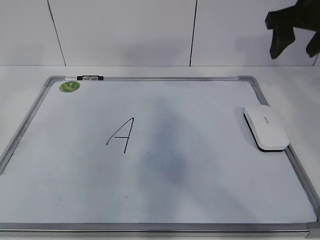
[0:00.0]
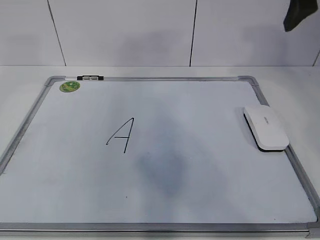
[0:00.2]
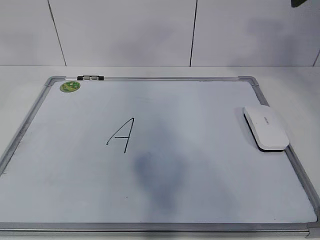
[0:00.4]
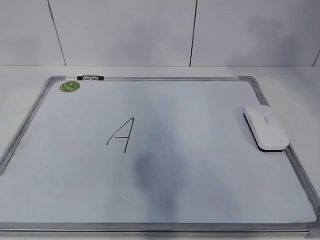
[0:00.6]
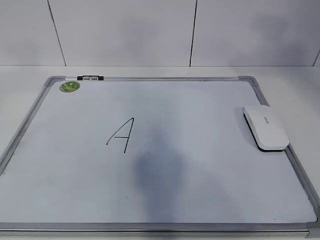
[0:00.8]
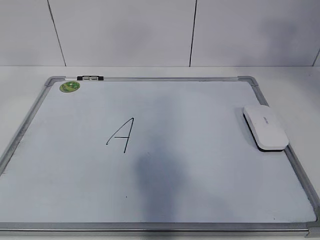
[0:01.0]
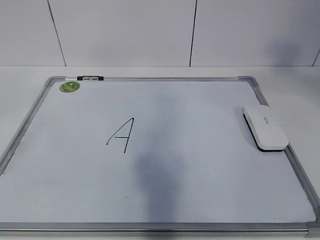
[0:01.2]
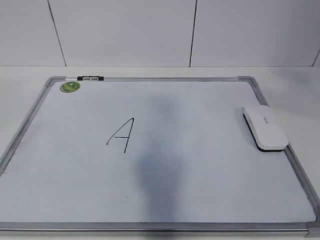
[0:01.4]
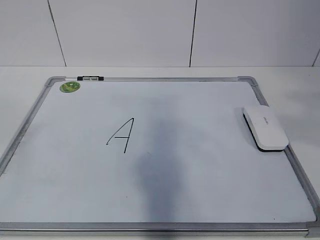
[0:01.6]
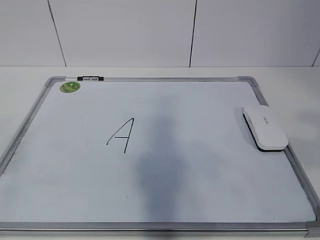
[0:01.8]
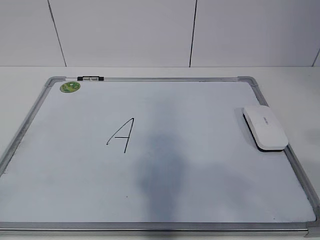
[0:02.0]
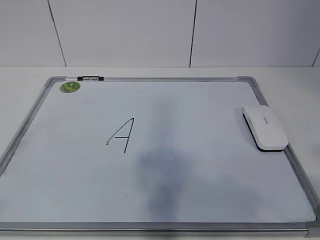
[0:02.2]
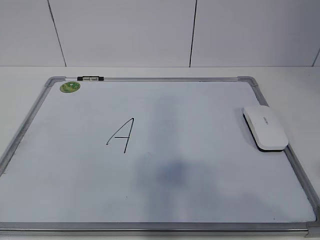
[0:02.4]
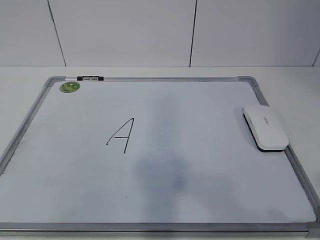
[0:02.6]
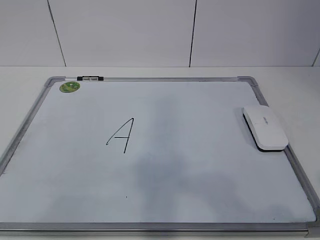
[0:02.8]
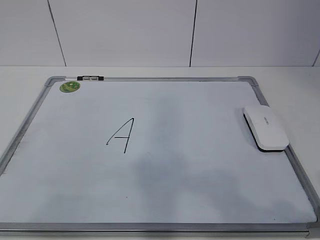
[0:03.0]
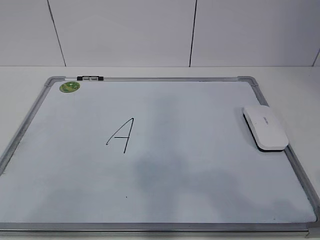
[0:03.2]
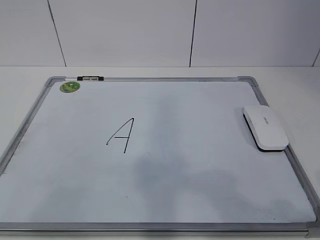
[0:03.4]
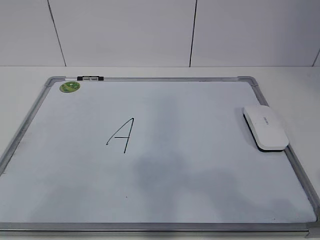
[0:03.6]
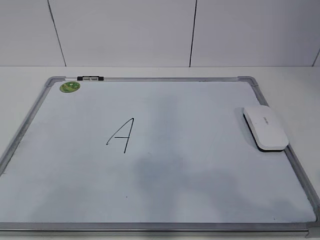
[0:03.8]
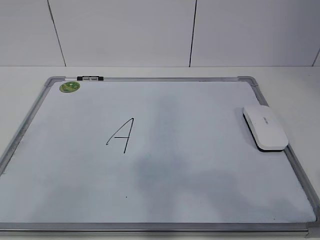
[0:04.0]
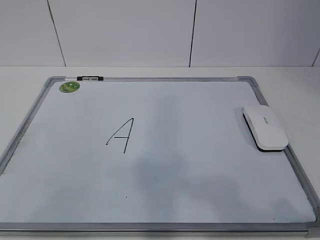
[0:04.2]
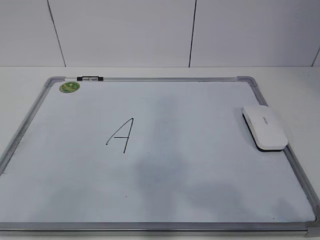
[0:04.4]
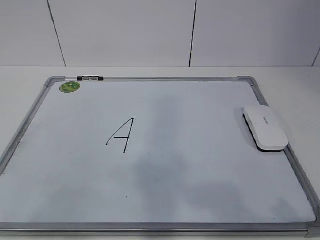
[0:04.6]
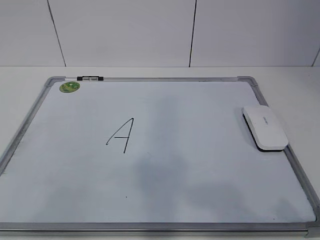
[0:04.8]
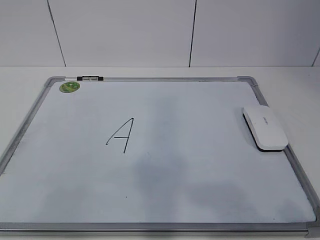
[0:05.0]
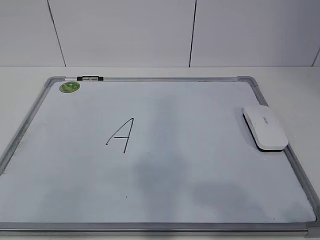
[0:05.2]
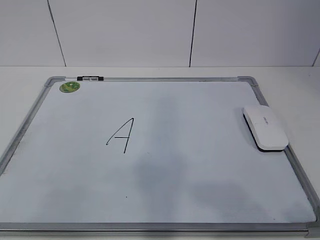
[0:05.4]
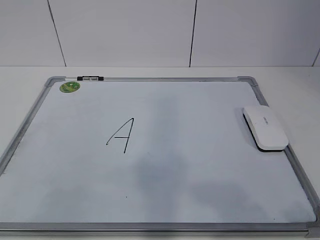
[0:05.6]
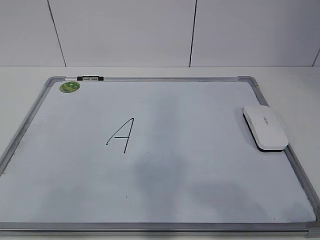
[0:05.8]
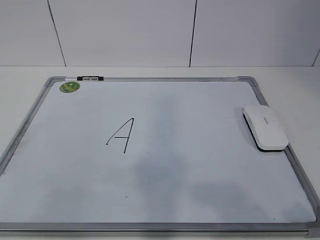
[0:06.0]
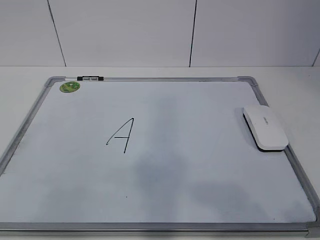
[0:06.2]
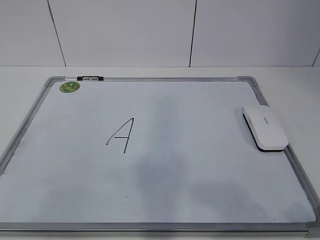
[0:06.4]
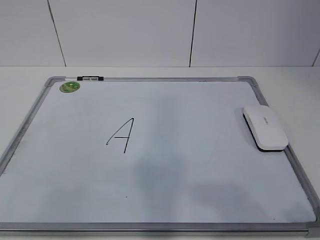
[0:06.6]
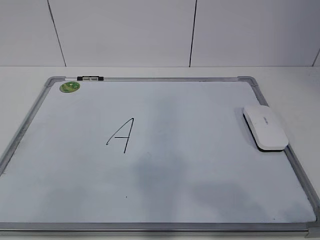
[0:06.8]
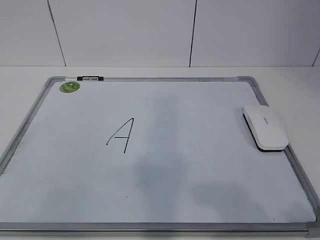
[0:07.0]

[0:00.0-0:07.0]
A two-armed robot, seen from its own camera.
Task of the whole recording: pick up the eraser on the blackboard and erase the letter "a".
0:00.0 to 0:01.4: The grippers both shift backward and upward by roughly 35 cm.
0:01.4 to 0:02.8: The left gripper moves downward, about 20 cm. Meanwhile the right gripper moves downward and backward, some 25 cm.
0:05.6 to 0:07.0: Both grippers stay put.

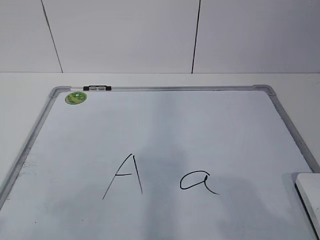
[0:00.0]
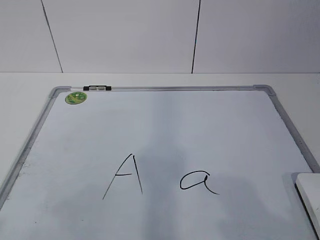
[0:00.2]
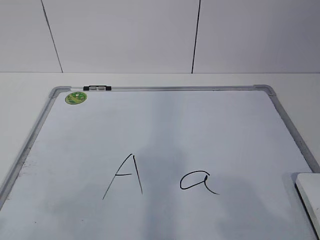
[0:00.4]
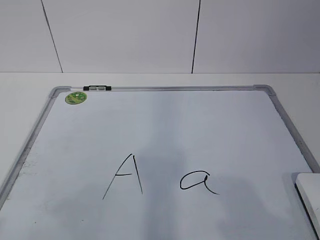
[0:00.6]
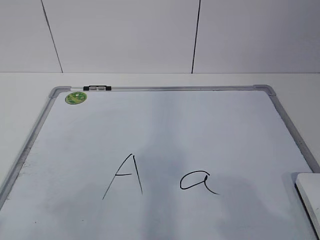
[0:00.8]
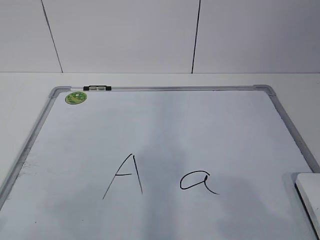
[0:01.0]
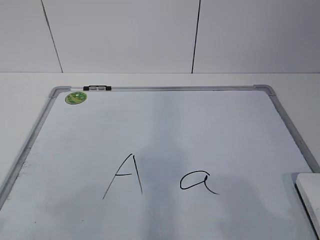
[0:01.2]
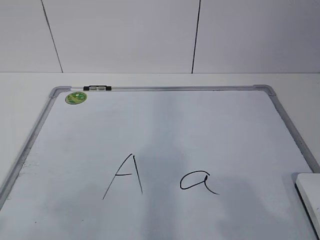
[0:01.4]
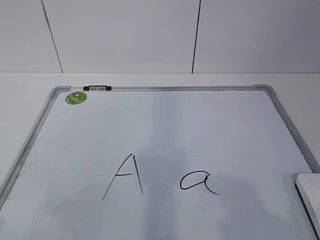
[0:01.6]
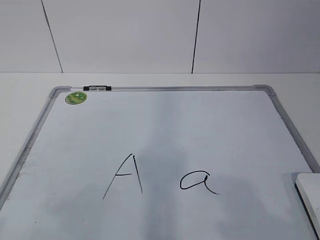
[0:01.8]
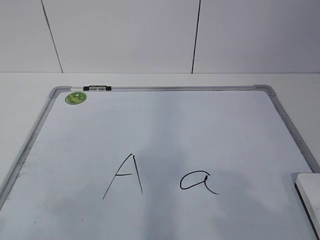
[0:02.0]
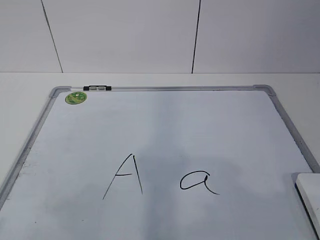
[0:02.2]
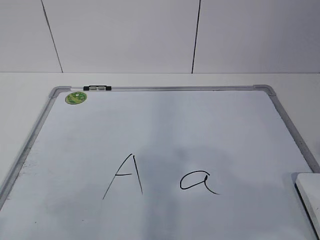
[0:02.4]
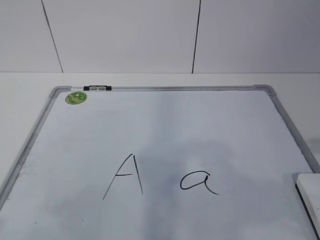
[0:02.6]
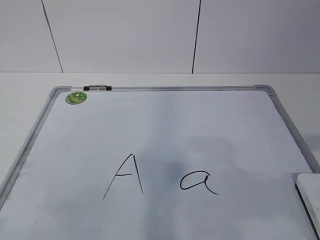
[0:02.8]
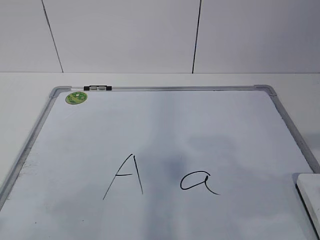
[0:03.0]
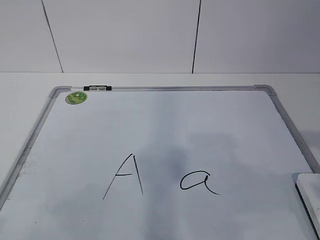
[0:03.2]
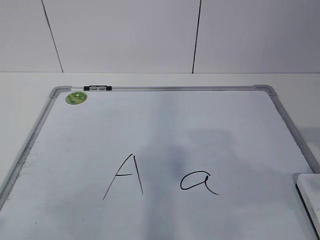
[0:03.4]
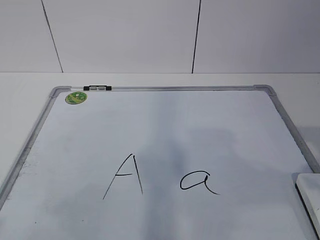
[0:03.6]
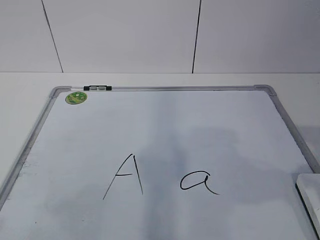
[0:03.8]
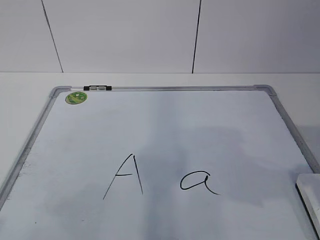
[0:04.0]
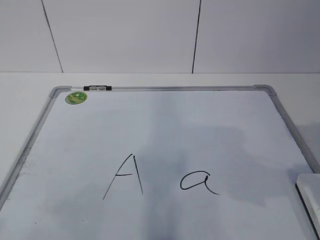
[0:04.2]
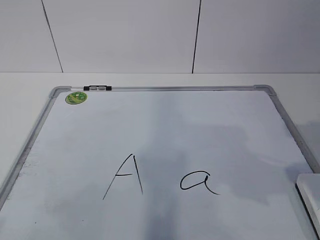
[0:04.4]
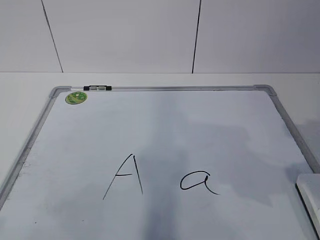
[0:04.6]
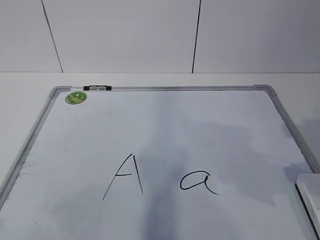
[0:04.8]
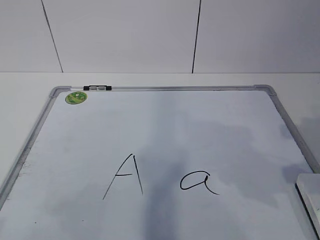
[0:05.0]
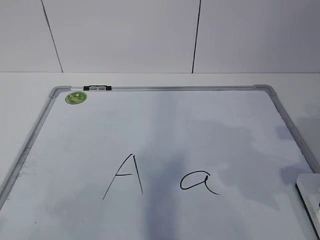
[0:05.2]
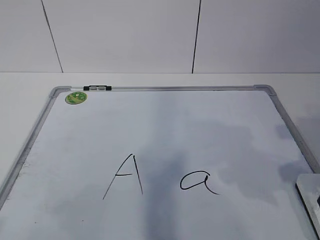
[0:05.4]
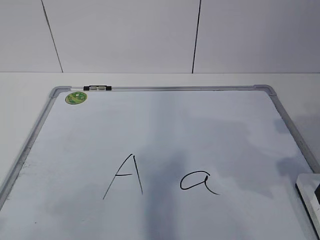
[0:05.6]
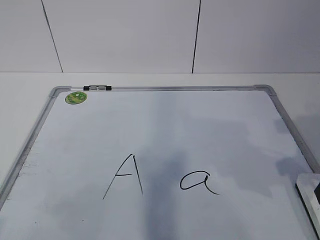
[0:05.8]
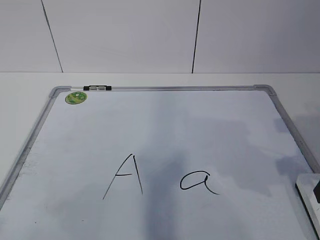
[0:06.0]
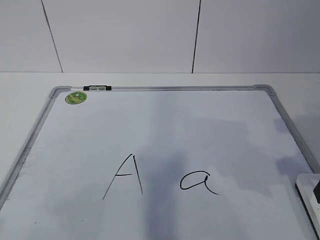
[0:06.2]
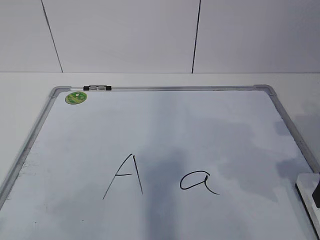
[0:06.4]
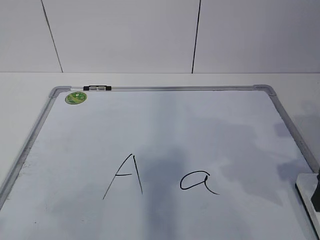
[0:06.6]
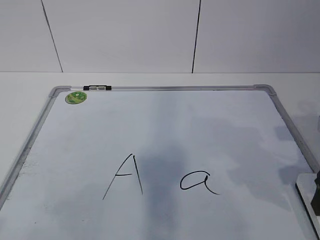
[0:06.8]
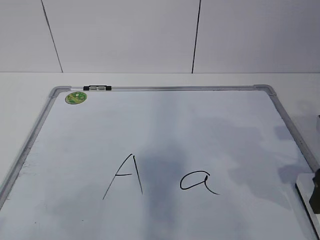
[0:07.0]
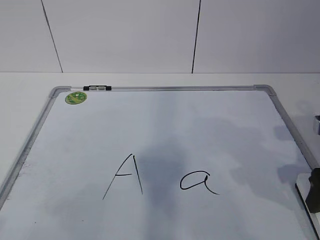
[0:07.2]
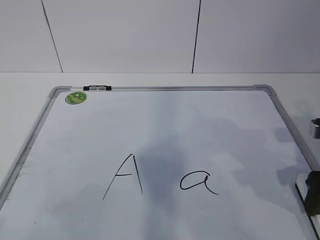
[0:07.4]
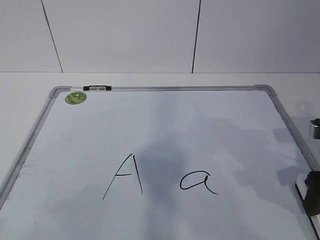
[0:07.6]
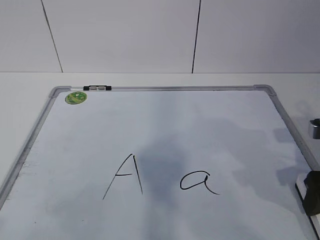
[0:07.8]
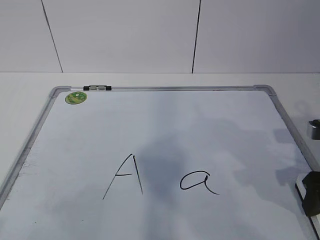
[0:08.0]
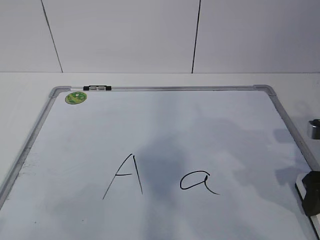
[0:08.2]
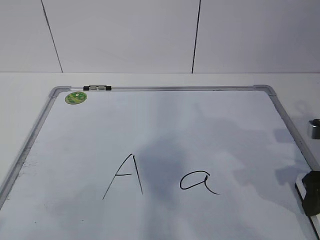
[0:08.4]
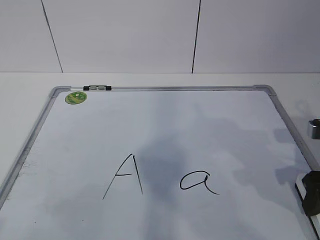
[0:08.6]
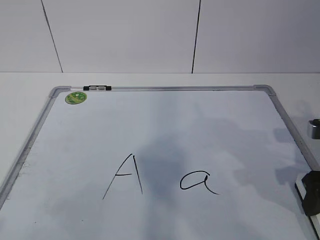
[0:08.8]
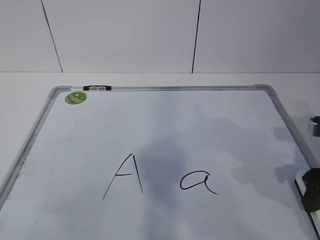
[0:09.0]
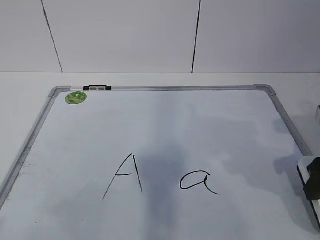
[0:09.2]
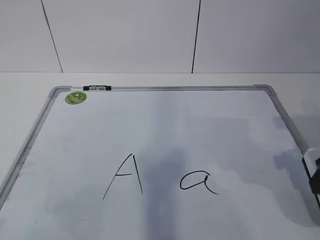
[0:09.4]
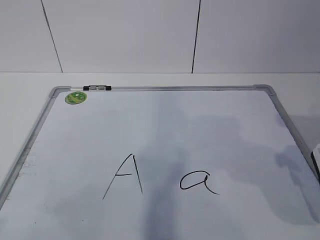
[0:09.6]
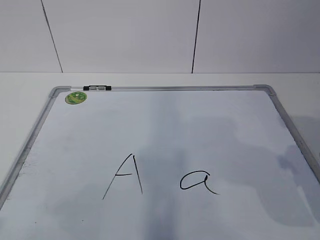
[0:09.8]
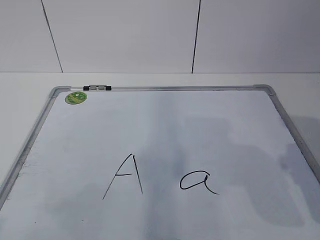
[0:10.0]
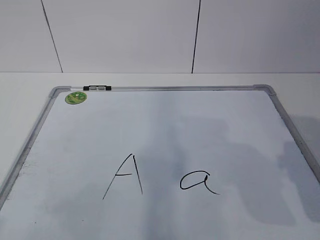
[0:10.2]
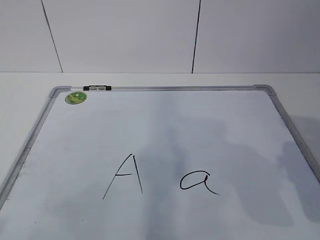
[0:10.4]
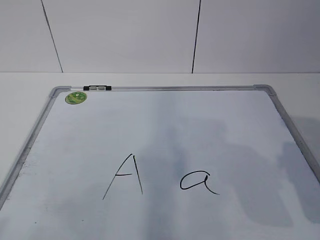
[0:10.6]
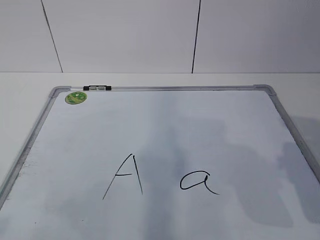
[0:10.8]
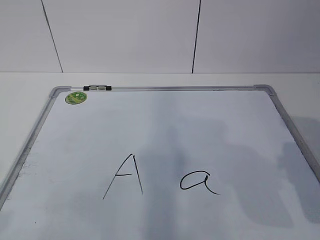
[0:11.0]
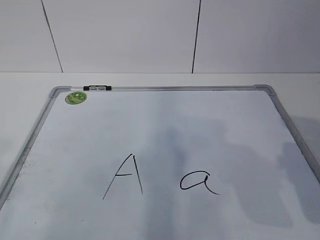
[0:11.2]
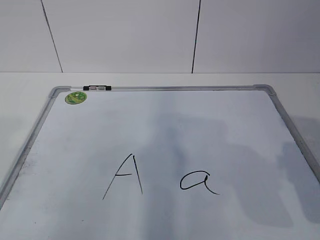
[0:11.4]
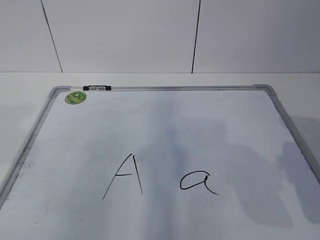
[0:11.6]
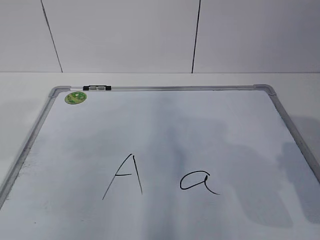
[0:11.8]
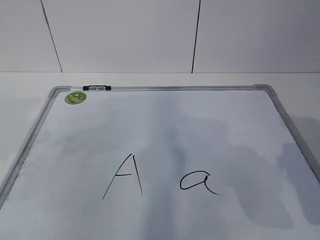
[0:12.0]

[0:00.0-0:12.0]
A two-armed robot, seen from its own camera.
Task of the whole recording: pick up the eraser on the blackboard and erase the letter "a".
Step, 0:06.2 to 0:11.8: Hold the drawing board steady with your left hand.
0:06.0 to 0:07.6: The right gripper moves roughly 5 cm.
0:07.6 to 0:09.0: Both grippers stay about where they are.
0:09.0 to 0:10.4: The right gripper goes some 15 cm upward and backward.

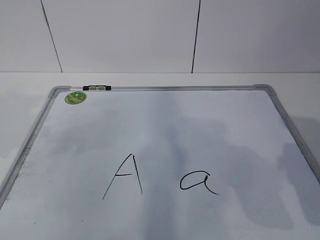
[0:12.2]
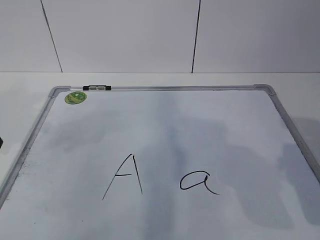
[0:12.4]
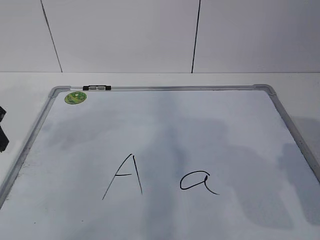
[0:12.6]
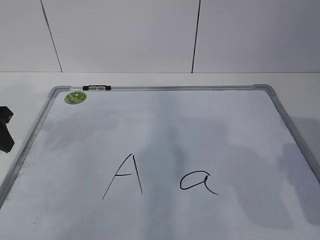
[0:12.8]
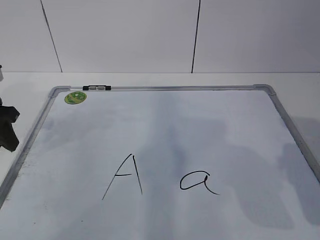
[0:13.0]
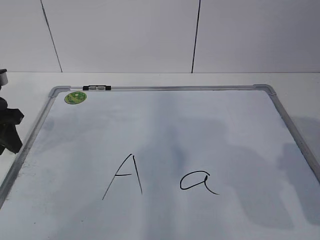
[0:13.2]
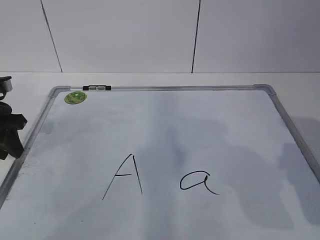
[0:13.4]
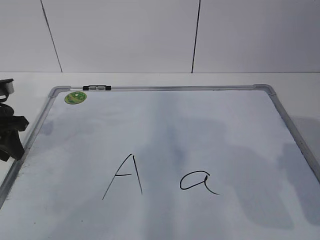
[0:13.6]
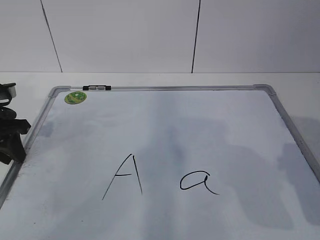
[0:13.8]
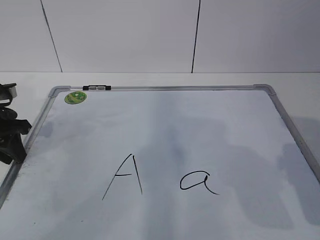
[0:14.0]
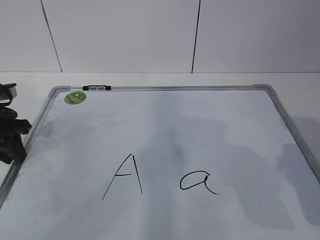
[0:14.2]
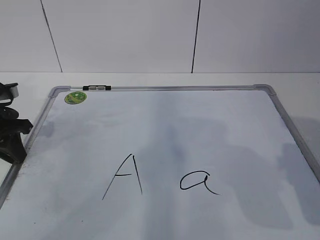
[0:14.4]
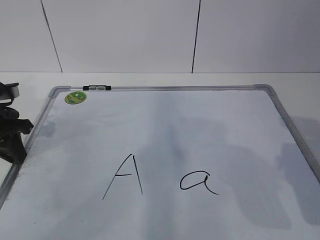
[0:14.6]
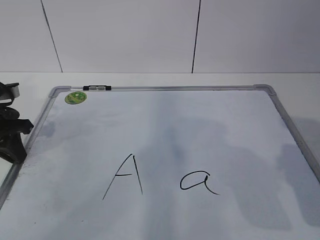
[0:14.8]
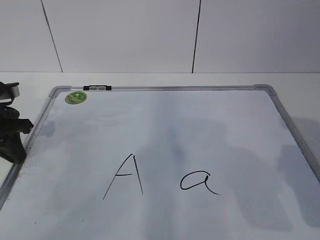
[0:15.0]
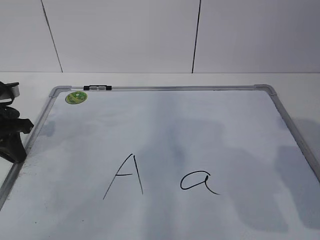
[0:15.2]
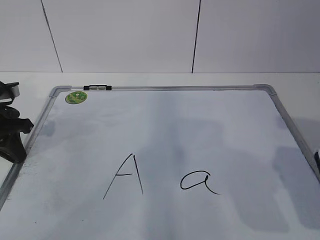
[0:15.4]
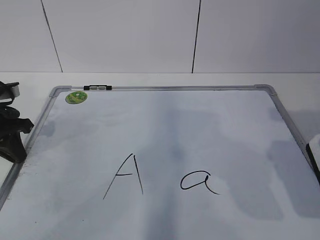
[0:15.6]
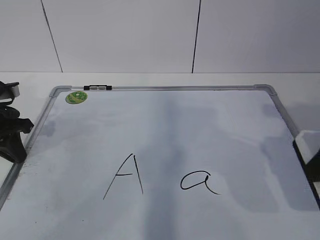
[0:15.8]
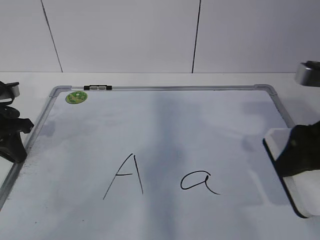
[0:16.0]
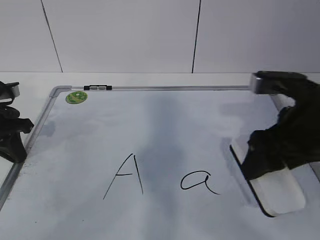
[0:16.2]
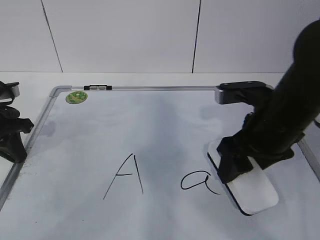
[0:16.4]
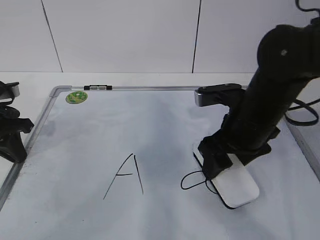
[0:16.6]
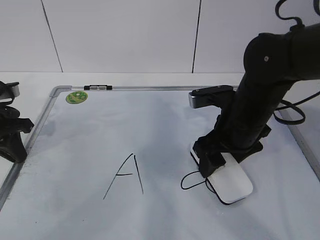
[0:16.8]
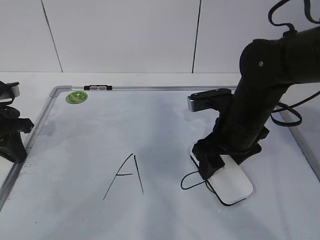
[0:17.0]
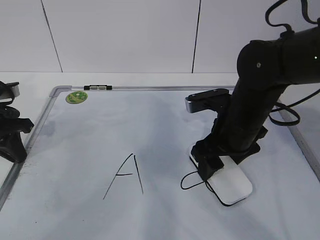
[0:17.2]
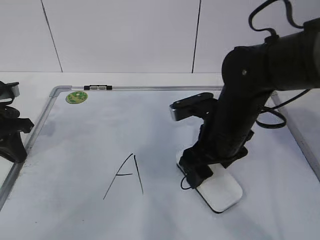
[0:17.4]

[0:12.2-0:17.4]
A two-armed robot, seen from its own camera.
Task of the whole recording: pick up the eraser on the blackboard and erase the letter "a".
Step, 0:12.2 to 0:16.6: Erase the letter a with your right hand.
0:12.2 to 0:14.0: The left gripper heads forward and downward, covering about 15 cm, and closes its fingers.
0:14.0 to 0:15.6: The left gripper closes.
0:15.6 to 0:17.4: The right gripper moves to the left, forward and downward, about 25 cm.
